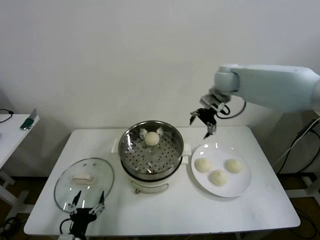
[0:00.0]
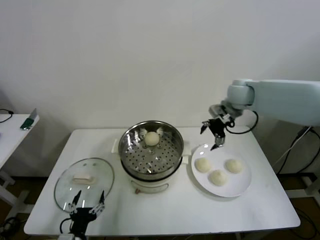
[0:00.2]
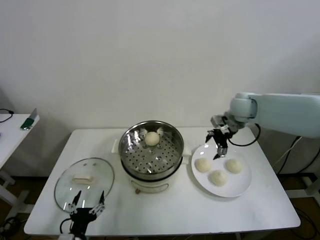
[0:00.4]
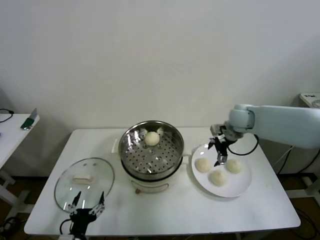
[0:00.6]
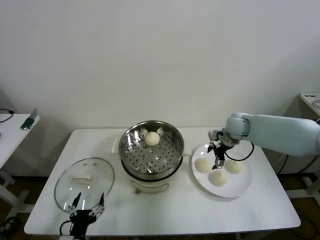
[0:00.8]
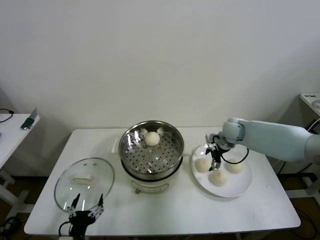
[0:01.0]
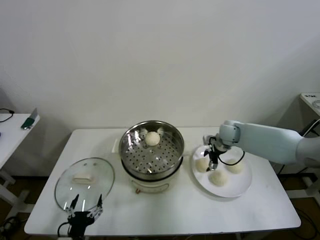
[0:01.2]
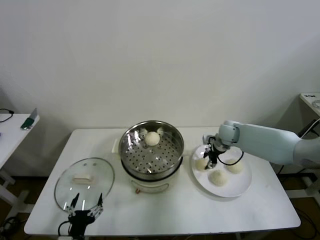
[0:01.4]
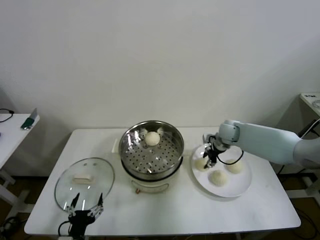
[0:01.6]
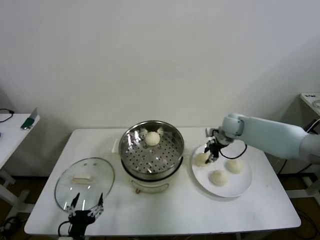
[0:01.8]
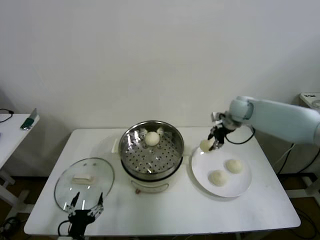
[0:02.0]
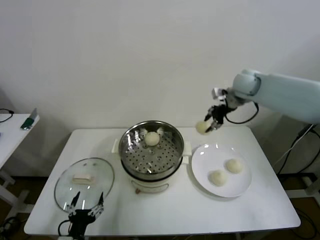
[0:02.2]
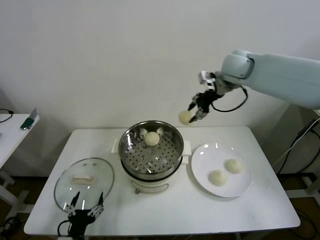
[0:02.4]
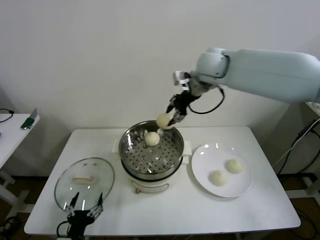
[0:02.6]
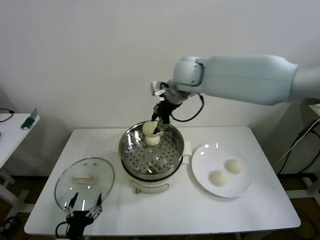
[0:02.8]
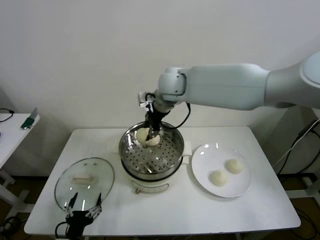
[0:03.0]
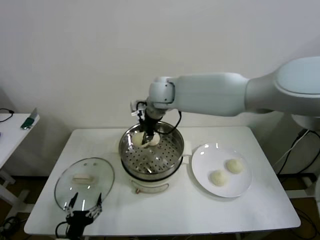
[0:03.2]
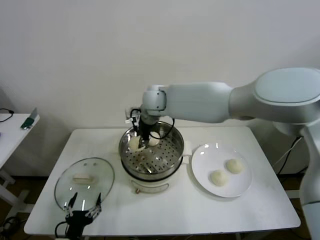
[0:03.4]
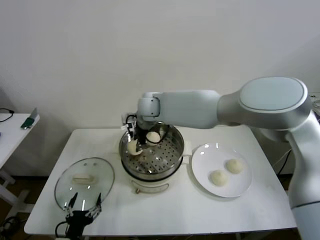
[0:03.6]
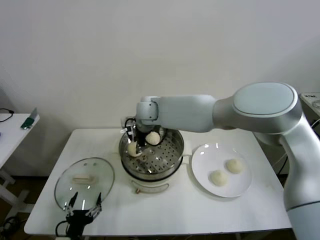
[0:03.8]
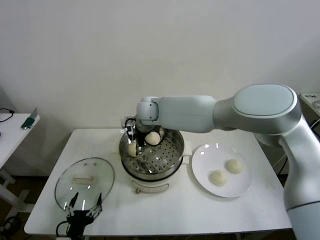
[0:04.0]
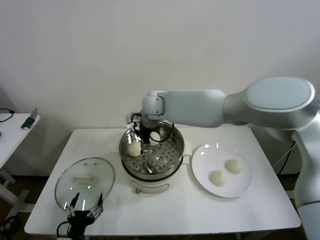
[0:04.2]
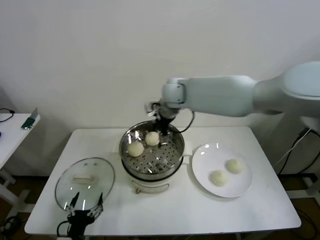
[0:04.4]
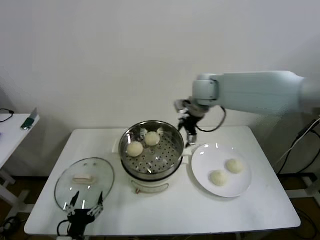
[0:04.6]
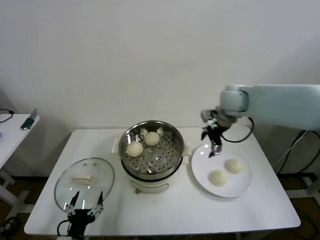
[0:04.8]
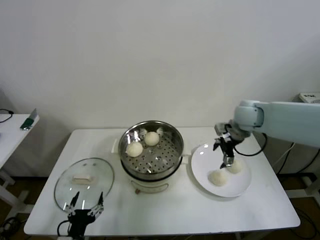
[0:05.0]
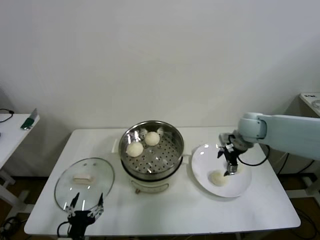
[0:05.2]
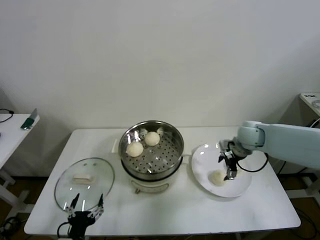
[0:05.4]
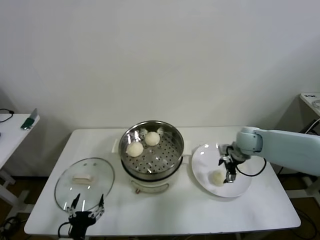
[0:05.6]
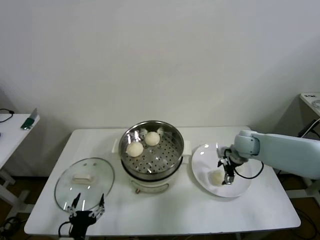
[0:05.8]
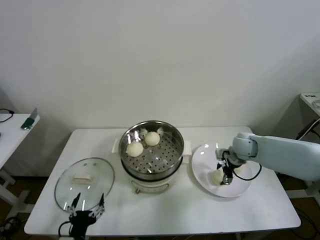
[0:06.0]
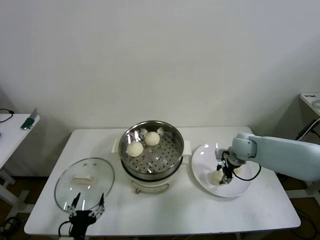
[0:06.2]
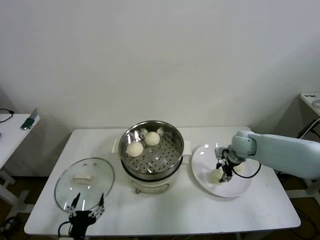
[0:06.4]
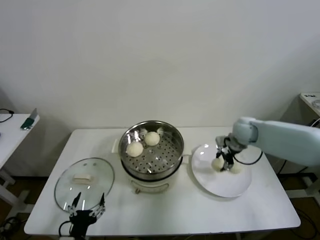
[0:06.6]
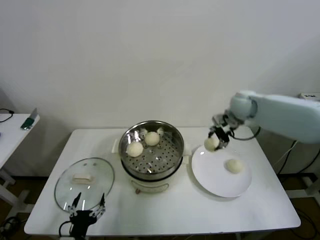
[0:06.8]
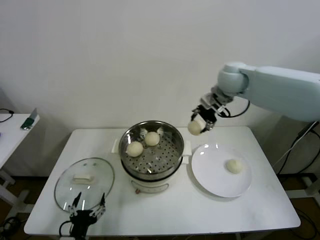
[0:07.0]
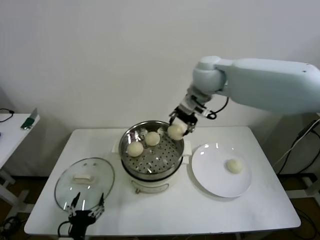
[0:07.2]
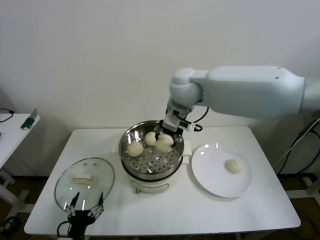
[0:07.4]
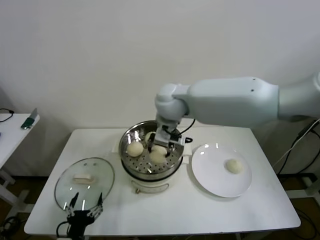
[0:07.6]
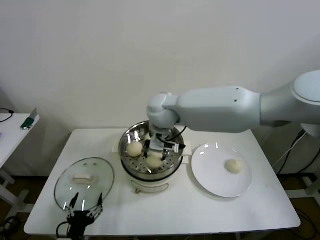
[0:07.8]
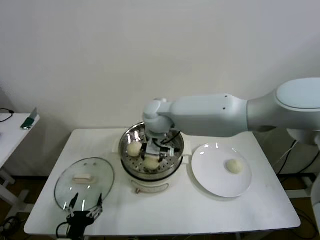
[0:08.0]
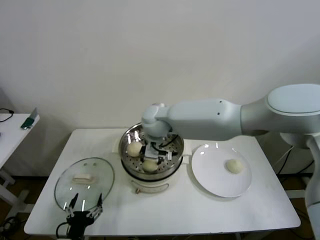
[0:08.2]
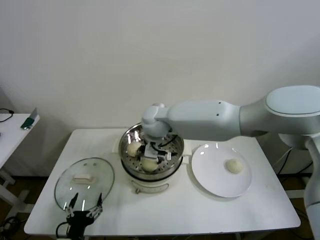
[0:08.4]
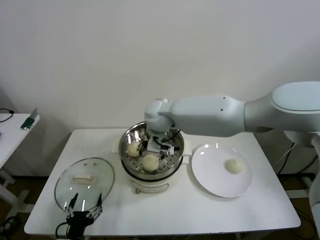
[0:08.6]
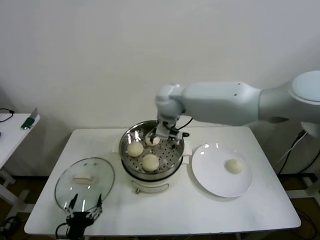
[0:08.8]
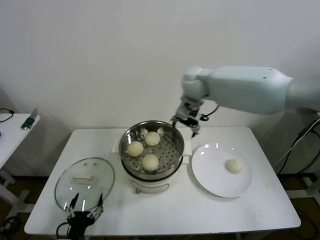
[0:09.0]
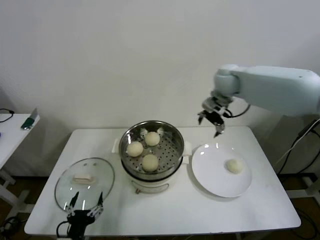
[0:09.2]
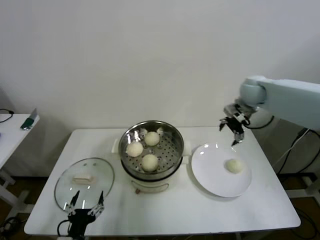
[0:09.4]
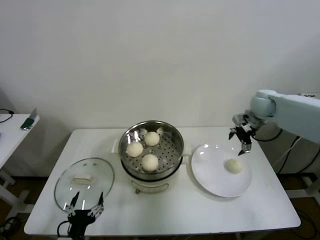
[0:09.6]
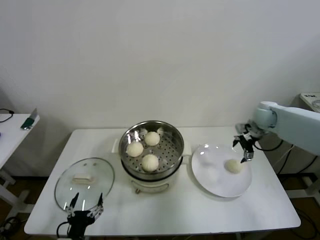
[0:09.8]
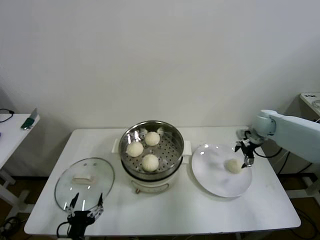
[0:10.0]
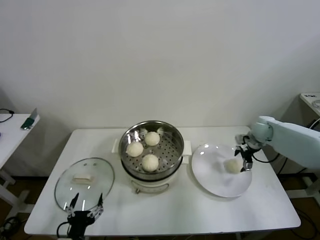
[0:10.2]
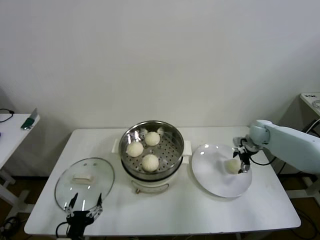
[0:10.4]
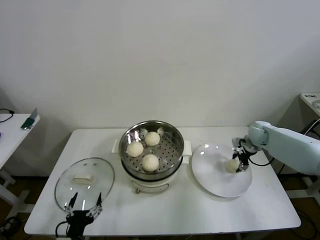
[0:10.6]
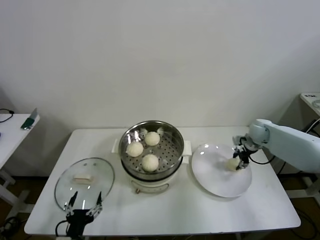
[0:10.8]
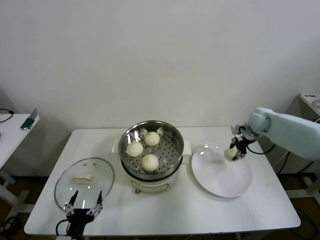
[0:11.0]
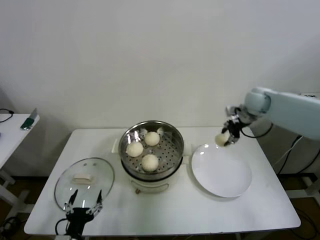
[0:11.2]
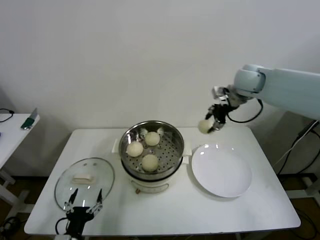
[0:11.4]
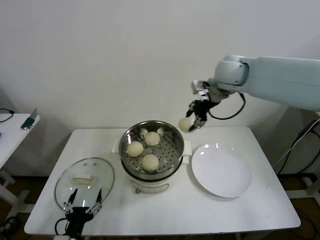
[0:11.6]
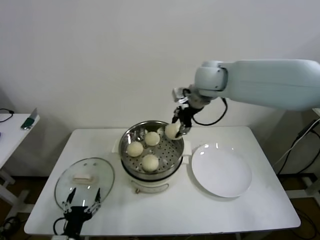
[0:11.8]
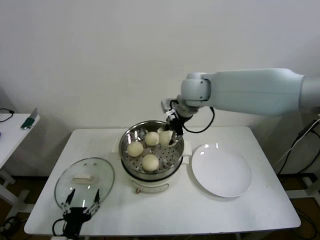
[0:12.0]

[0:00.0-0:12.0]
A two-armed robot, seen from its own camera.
Step, 0:00.0 to 0:01.4: Grasp the baozi in the plate with right gripper.
Step, 0:01.6 to 0:03.8: Place the baozi on the steamer with right gripper.
Step, 0:04.2 to 0:06.2: Grasp the baozi in the plate with right gripper.
Step, 0:06.4 to 0:08.2: Place the baozi on the steamer with right gripper.
Step, 0:08.6 to 0:10.6: Grasp the baozi in the plate with right gripper.
0:00.0 to 0:01.6: The right gripper heads downward, covering roughly 20 cm, and closes up.
0:01.6 to 0:03.0: The right gripper heads to the left and upward, covering approximately 35 cm.
0:03.0 to 0:04.4: The right gripper opens its fingers.
0:04.4 to 0:06.0: The right gripper travels to the right and downward by roughly 30 cm.
0:06.0 to 0:07.6: The right gripper travels to the left and upward by approximately 35 cm, and closes up.
0:07.6 to 0:09.0: The right gripper goes about 15 cm to the right and forward, and opens.
0:09.0 to 0:10.4: The right gripper moves to the right and downward, about 35 cm.
0:10.4 to 0:12.0: The right gripper moves to the left and upward, some 35 cm, and closes up.

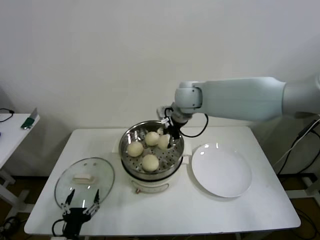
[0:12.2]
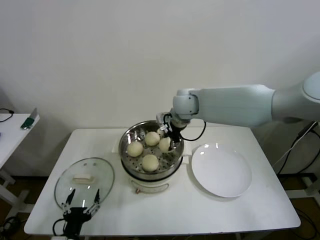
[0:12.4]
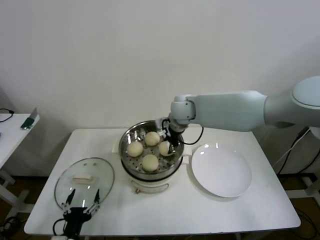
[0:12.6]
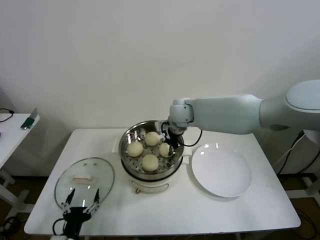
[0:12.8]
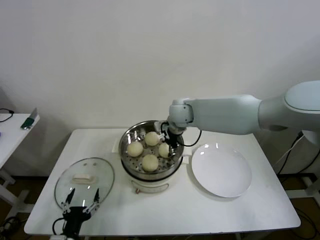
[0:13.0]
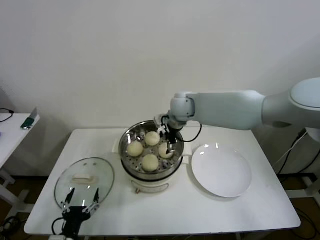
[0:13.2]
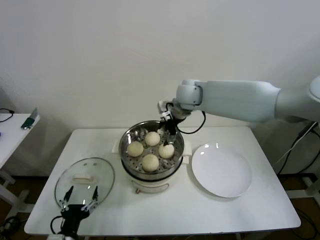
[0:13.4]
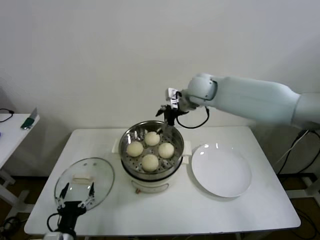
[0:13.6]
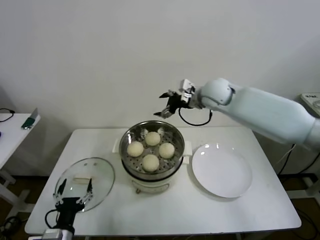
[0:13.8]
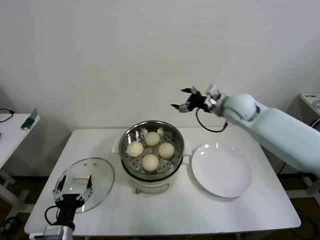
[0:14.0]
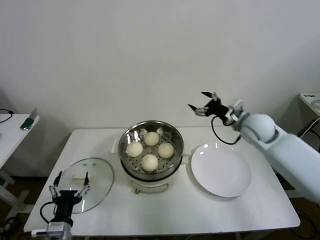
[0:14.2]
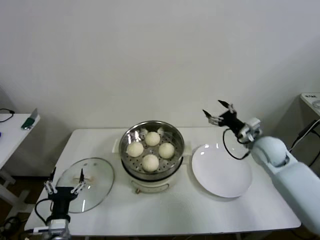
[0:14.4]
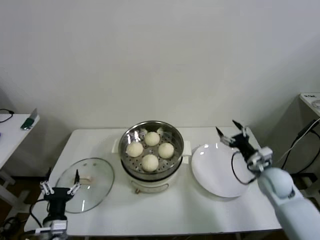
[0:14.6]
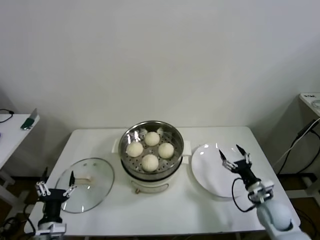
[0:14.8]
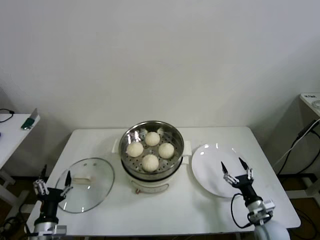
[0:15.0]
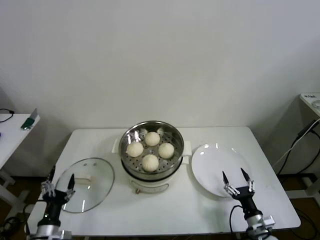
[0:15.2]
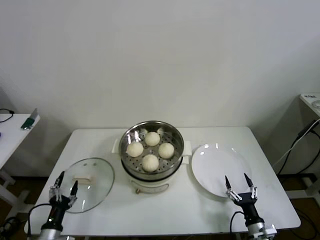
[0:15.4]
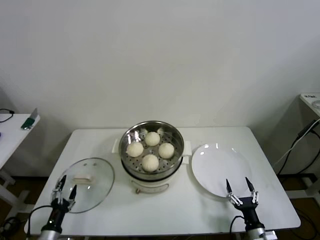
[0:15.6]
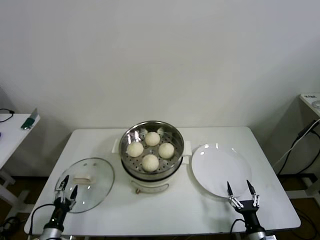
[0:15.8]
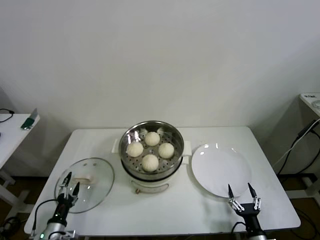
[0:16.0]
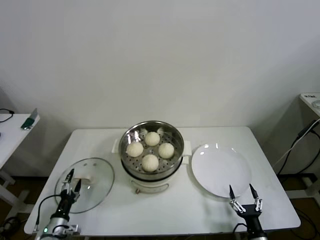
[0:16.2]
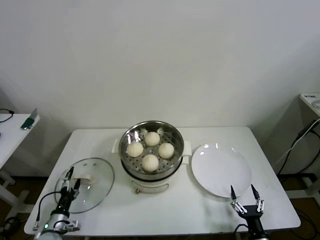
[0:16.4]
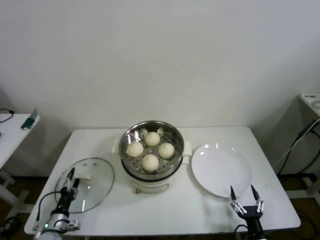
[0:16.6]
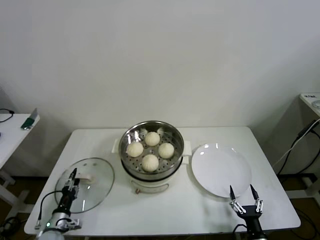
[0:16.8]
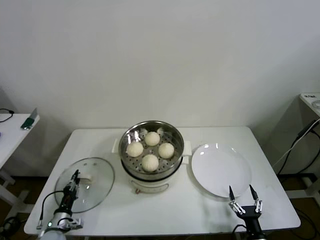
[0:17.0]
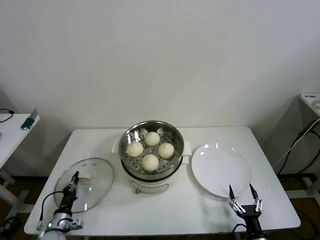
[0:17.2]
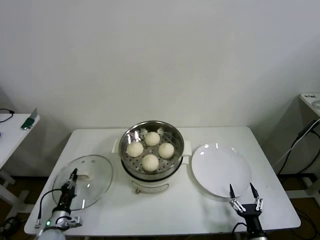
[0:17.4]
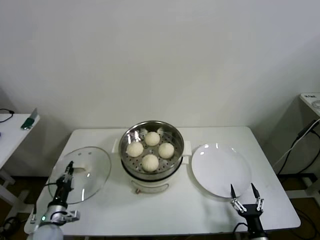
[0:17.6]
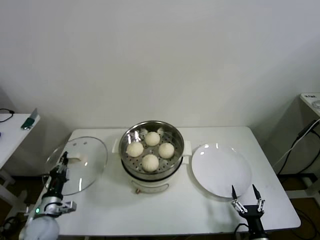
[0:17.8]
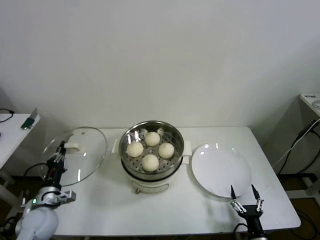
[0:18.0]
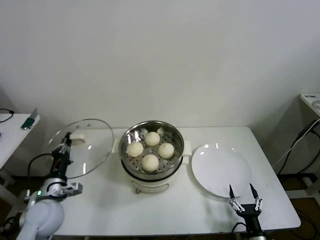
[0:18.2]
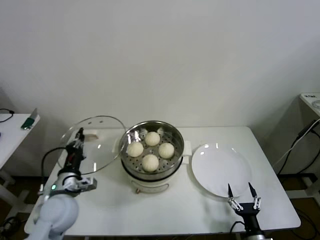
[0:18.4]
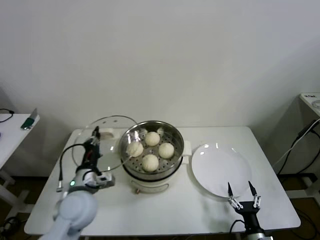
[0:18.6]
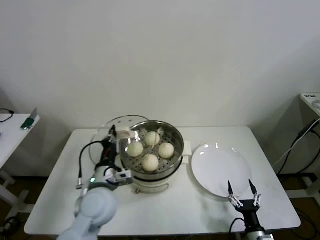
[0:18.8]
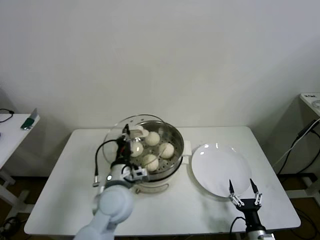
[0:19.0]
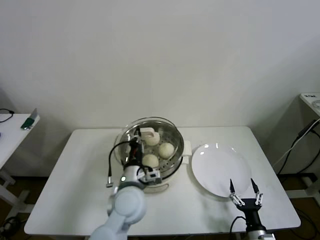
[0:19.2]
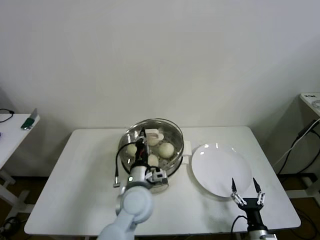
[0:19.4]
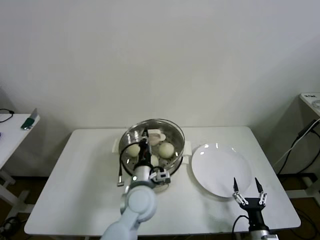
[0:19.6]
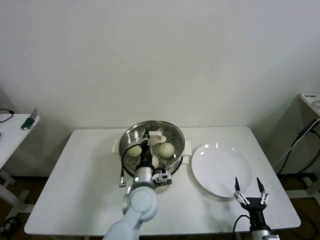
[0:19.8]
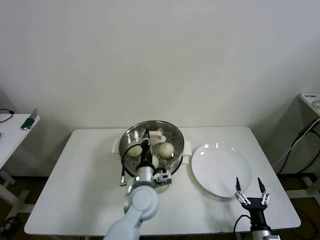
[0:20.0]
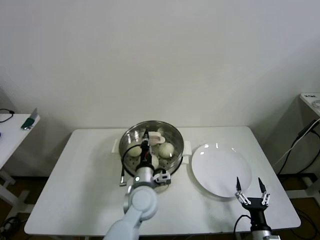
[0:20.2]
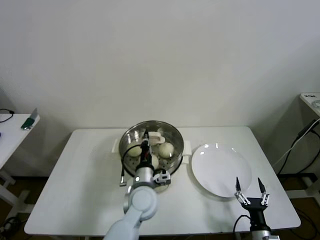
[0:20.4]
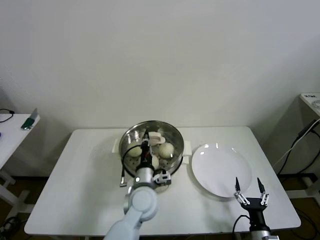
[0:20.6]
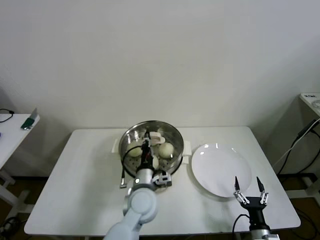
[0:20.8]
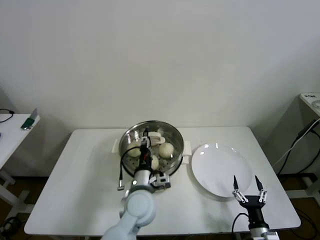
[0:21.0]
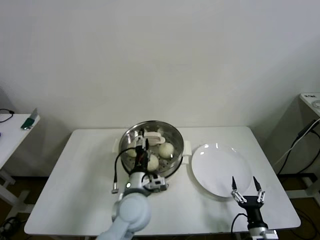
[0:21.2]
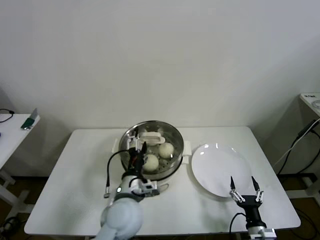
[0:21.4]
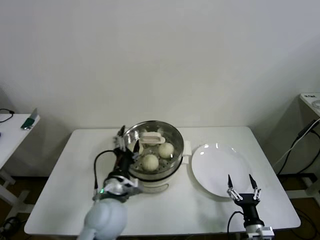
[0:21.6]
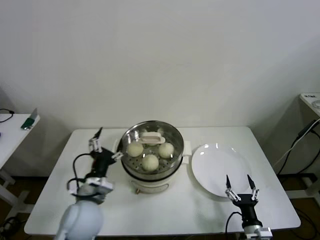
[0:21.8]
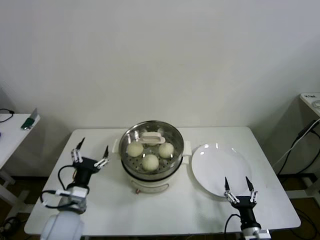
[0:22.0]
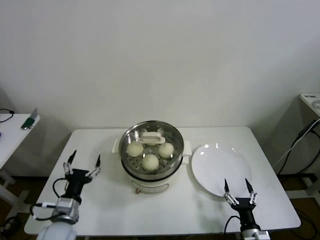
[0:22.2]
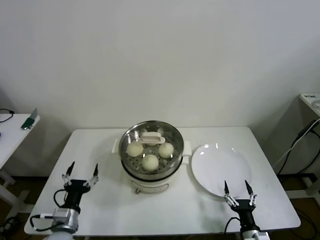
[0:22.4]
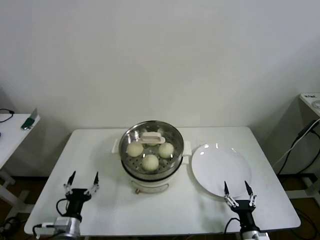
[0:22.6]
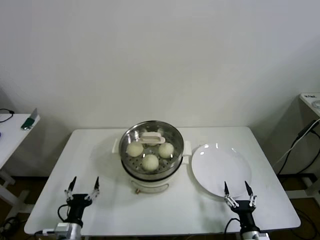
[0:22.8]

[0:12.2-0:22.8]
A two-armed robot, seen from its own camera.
Step, 0:13.2 to 0:17.0: Grasp the pot lid with left gripper.
Step, 0:17.4 to 0:20.6: Place the pot lid on the steamer with left gripper.
0:12.2 to 0:13.8: The right gripper travels to the right by approximately 10 cm, and opens its fingers.
0:13.8 to 0:15.2: The right gripper moves downward, backward and to the right, about 50 cm. The left gripper travels to the left by roughly 5 cm.
0:15.2 to 0:16.8: The left gripper shifts approximately 10 cm downward and forward, and closes its fingers. The right gripper moves backward, approximately 5 cm.
0:16.8 to 0:18.2: The left gripper heads upward, covering roughly 20 cm, and closes up.
0:18.2 to 0:19.8: The left gripper shifts some 30 cm to the right.
0:19.8 to 0:21.2: The left gripper opens its fingers.
0:21.2 to 0:22.8: The left gripper moves to the left, downward and backward, about 30 cm.
